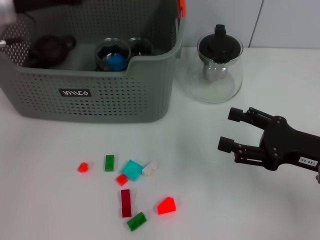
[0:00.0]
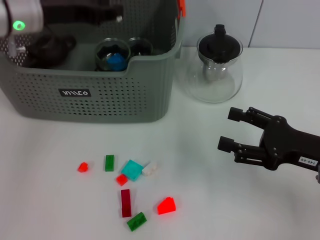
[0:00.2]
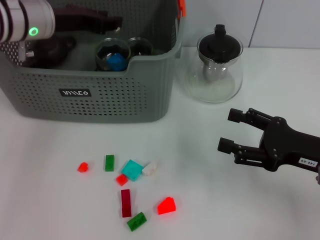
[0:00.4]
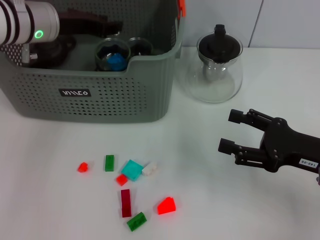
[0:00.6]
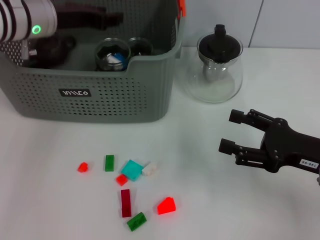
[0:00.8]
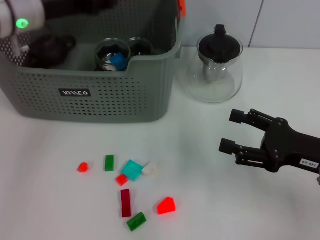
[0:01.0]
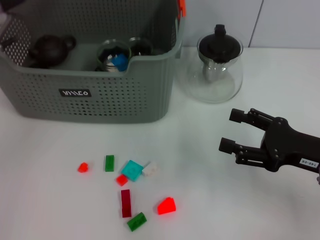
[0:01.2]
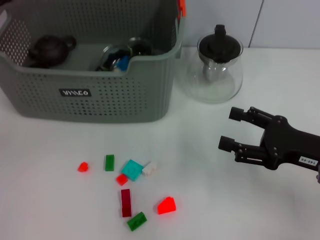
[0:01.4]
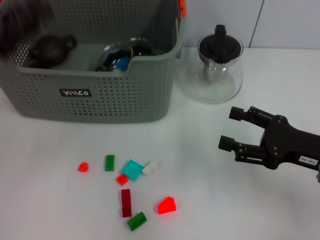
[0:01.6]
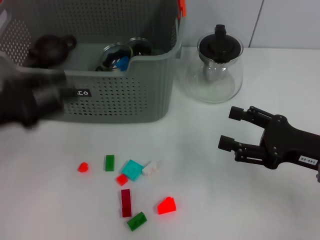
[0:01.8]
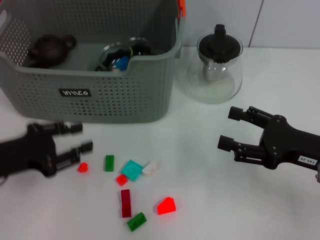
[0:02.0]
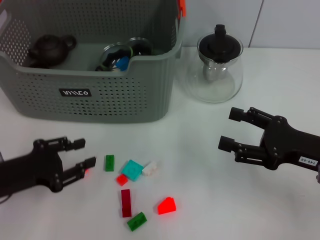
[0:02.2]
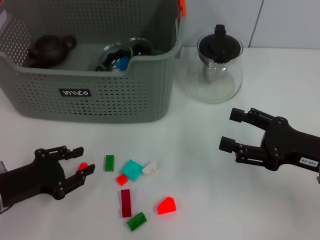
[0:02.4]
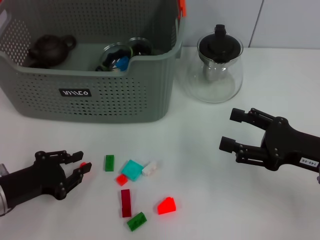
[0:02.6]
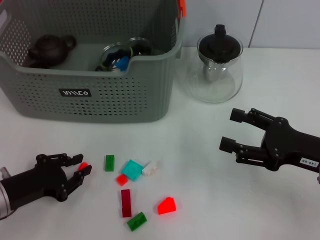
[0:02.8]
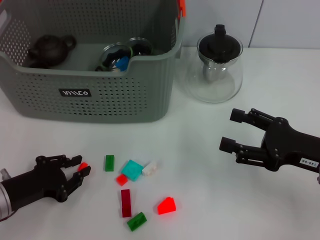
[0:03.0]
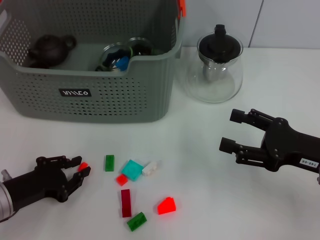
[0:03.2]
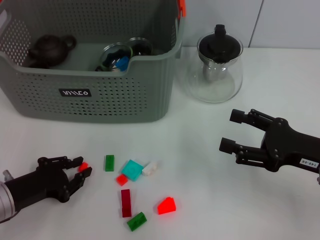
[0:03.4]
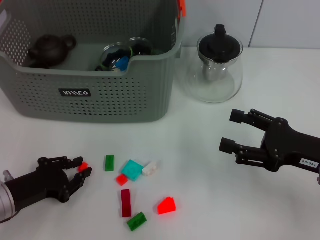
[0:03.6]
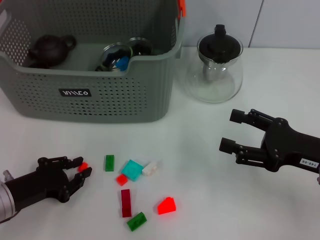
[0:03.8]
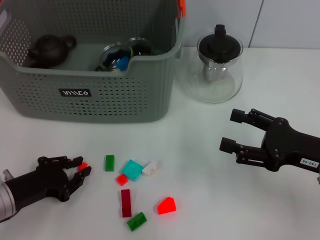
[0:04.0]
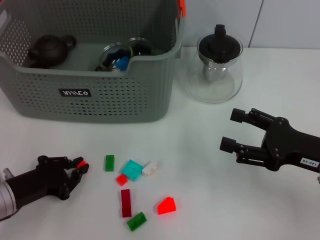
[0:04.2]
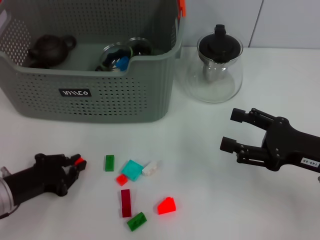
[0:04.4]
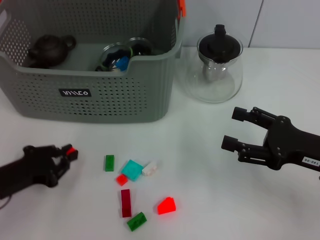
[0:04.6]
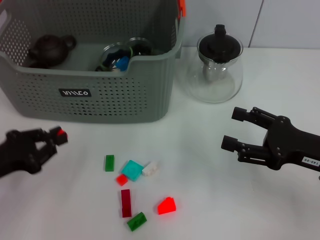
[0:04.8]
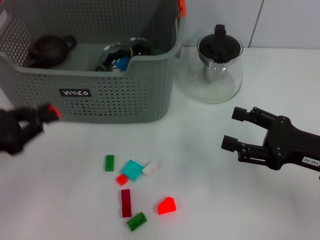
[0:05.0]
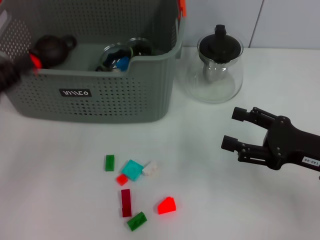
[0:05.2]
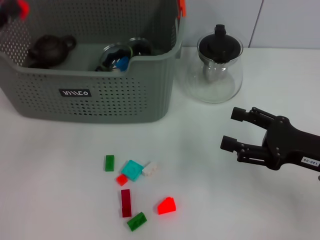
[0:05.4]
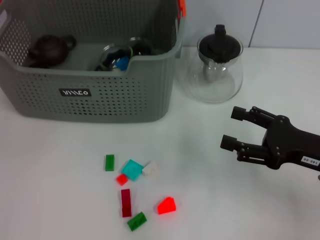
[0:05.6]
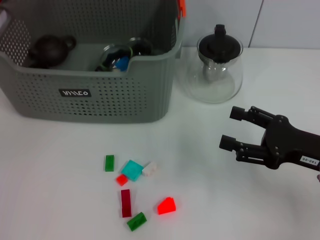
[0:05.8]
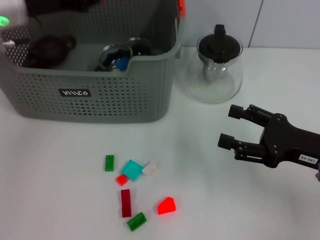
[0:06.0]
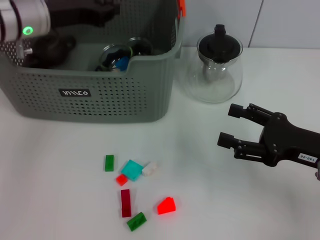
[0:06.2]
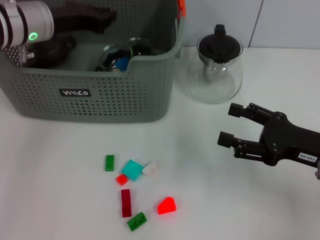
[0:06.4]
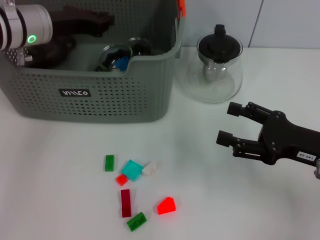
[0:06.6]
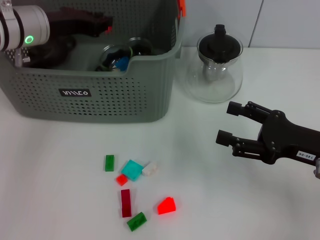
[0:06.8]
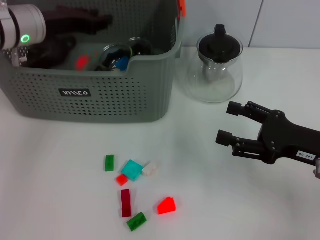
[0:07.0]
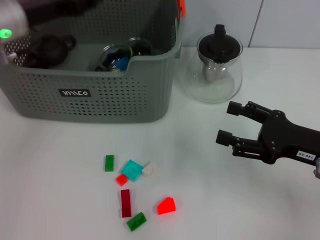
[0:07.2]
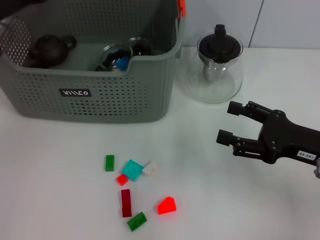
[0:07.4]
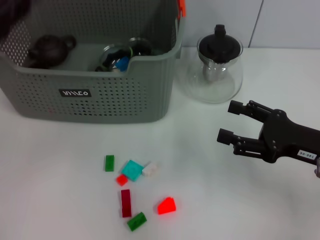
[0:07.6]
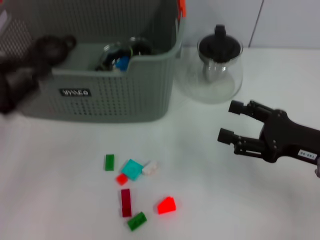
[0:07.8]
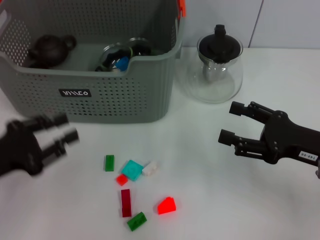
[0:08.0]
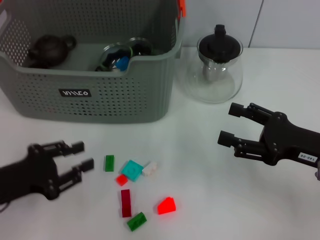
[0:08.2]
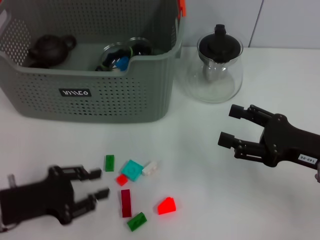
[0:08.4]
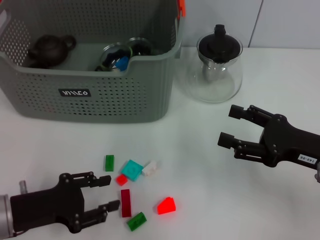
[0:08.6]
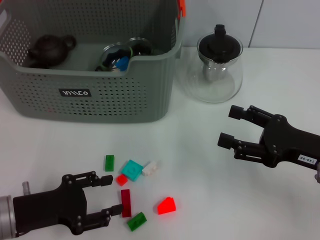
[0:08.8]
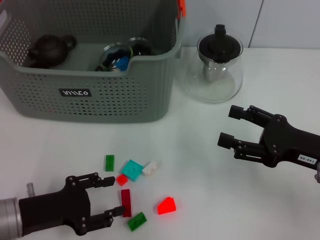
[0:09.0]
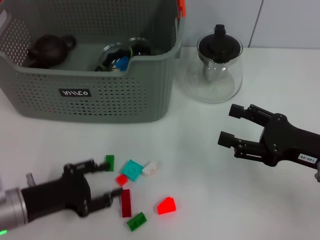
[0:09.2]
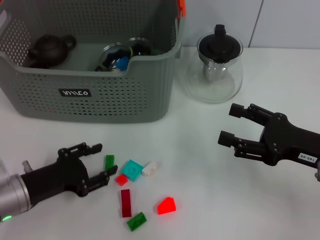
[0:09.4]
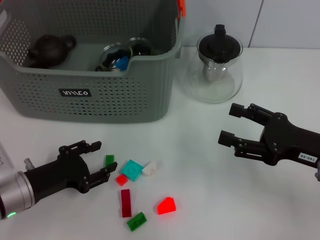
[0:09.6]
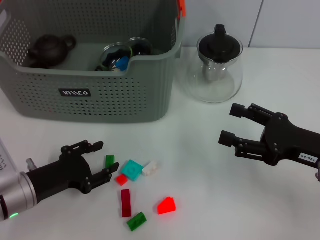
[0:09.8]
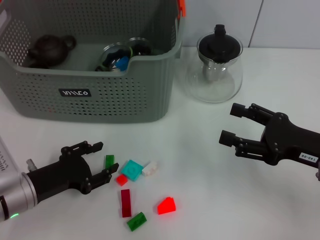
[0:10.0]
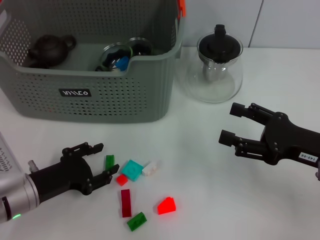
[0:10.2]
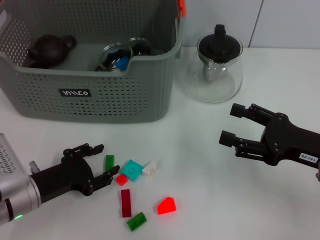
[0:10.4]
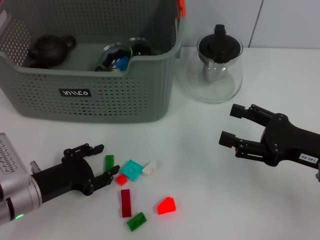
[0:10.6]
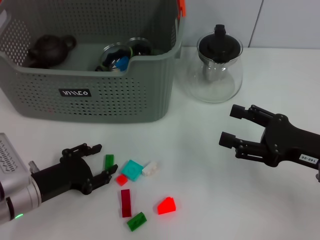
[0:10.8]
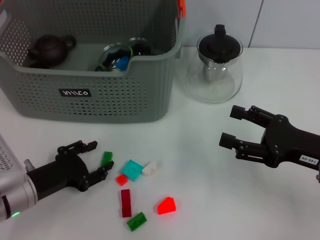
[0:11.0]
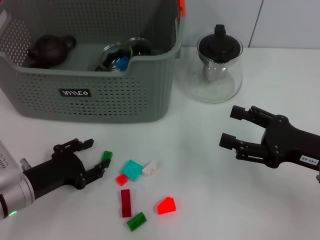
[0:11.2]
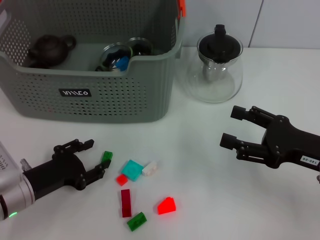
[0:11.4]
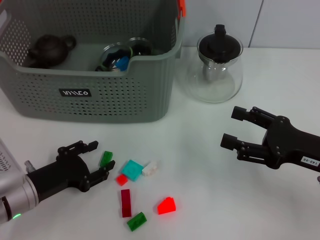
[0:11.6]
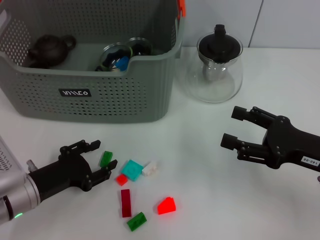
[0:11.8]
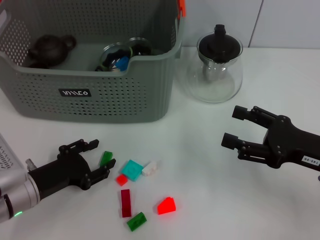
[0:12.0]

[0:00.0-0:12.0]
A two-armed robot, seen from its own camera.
Task of the whole recording: pick up the teacup on the table and place it into the storage bin, pick up the block on the table and place it into the storage bin.
Step, 0:01.2 to 0:04.4: Grasp the orange block with left gripper.
Step, 0:04.6 to 0:07.2: Place the orange block in the storage box with left gripper.
0:00.0 to 0:01.6: The left gripper is displaced backward and to the left by roughly 15 cm.
0:01.6 to 0:03.0: The left gripper is displaced downward and backward by some 15 cm.
0:03.0 to 0:04.4: The two grippers keep their place.
0:04.4 to 0:06.0: The left gripper is displaced forward and upward by some 25 cm.
0:06.0 to 0:07.6: The left gripper moves backward and to the left, roughly 15 cm.
0:07.6 to 0:09.0: The left gripper heads downward, backward and to the right, covering about 20 cm.
0:09.0 to 0:10.4: The grippers make only small movements.
0:10.4 to 0:12.0: Both grippers stay about where they are.

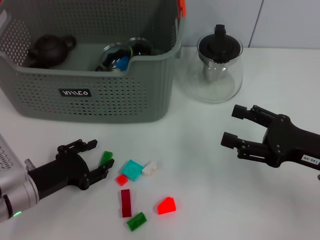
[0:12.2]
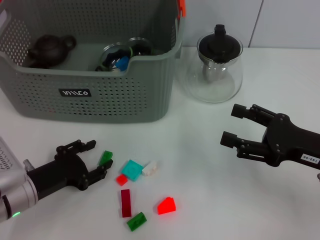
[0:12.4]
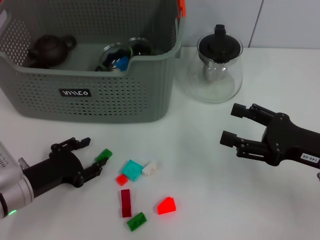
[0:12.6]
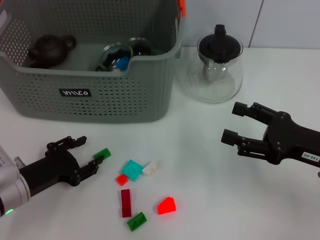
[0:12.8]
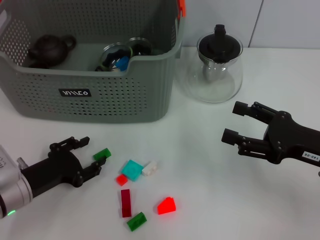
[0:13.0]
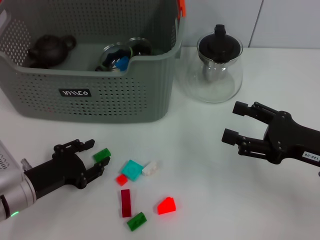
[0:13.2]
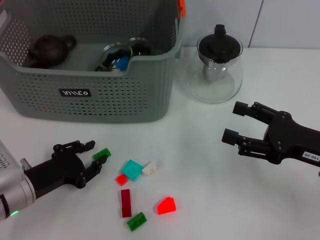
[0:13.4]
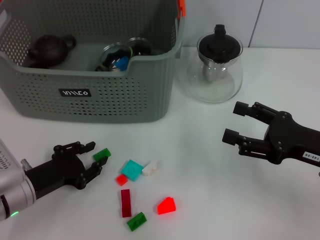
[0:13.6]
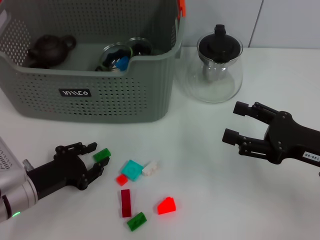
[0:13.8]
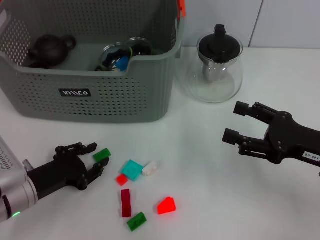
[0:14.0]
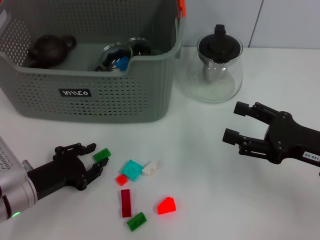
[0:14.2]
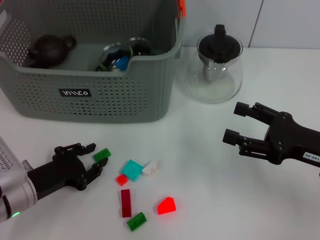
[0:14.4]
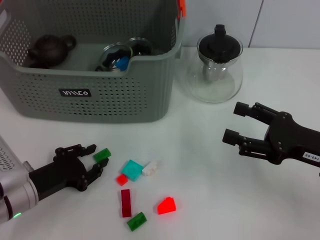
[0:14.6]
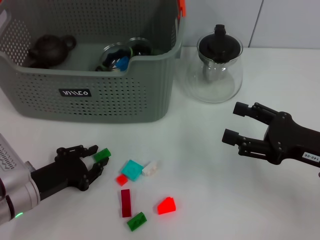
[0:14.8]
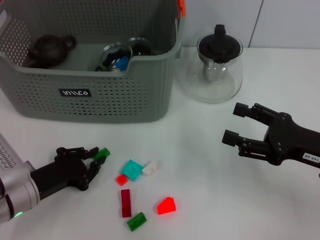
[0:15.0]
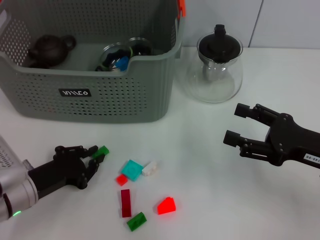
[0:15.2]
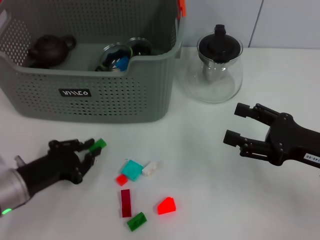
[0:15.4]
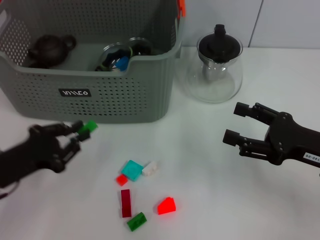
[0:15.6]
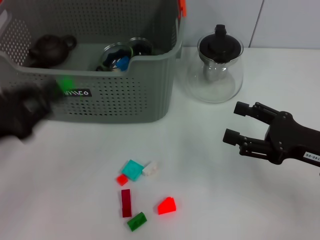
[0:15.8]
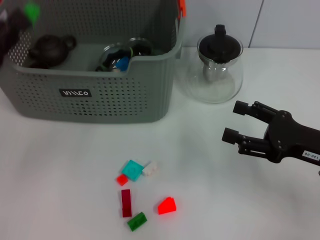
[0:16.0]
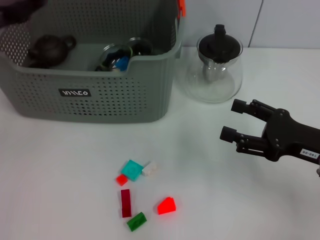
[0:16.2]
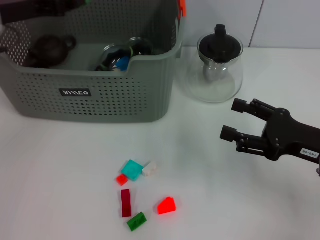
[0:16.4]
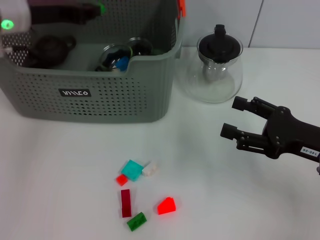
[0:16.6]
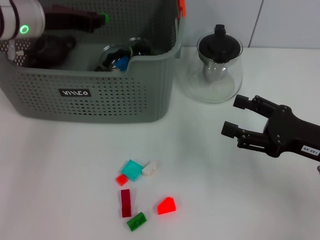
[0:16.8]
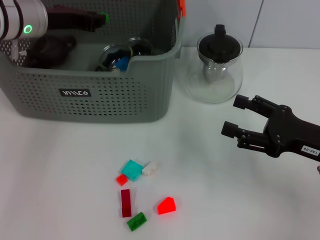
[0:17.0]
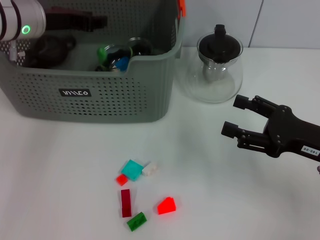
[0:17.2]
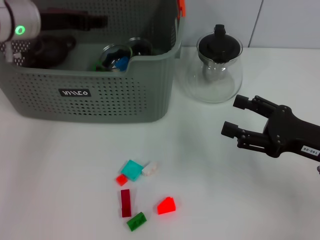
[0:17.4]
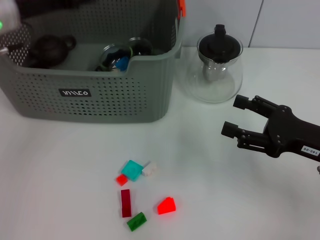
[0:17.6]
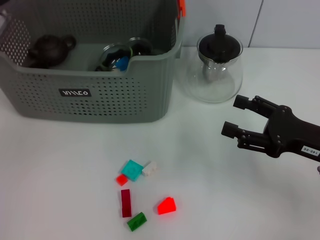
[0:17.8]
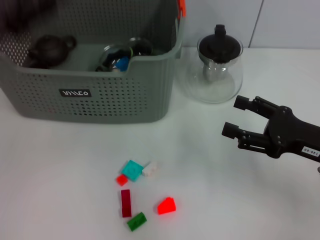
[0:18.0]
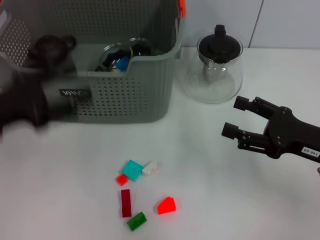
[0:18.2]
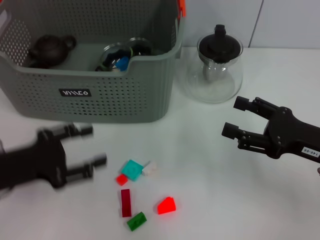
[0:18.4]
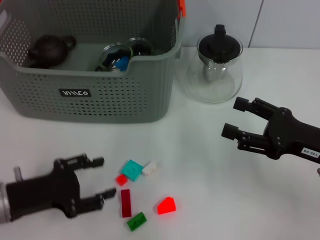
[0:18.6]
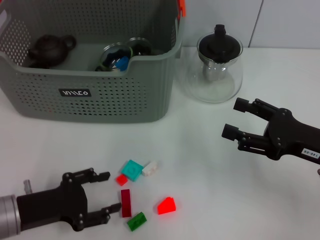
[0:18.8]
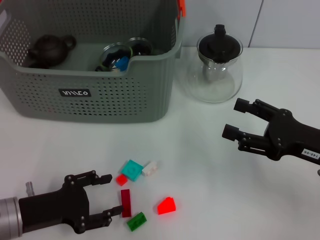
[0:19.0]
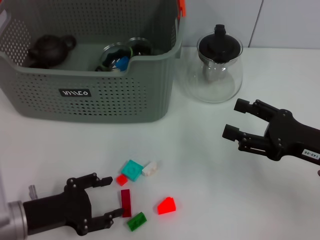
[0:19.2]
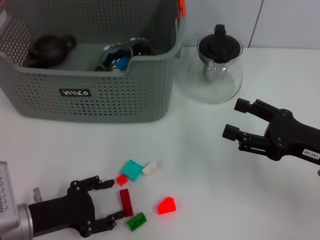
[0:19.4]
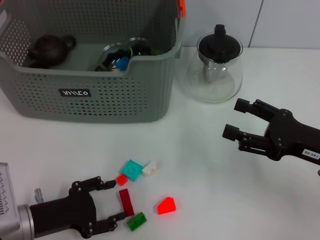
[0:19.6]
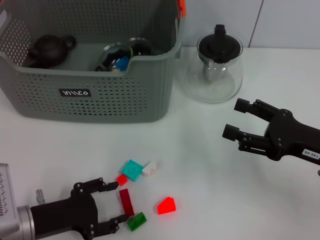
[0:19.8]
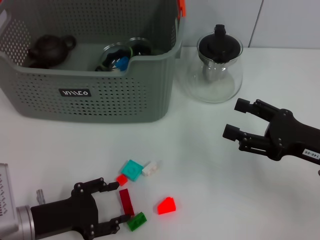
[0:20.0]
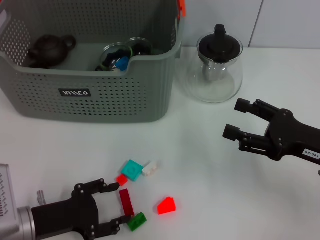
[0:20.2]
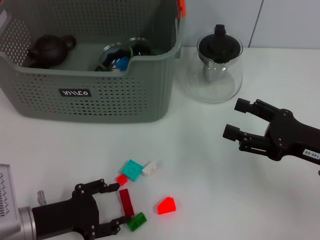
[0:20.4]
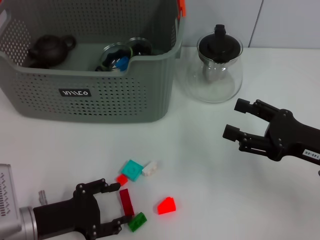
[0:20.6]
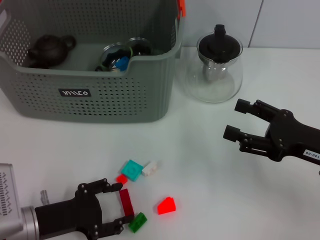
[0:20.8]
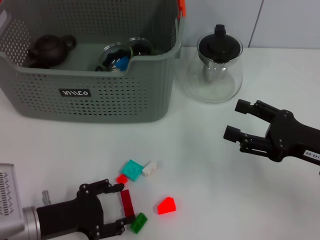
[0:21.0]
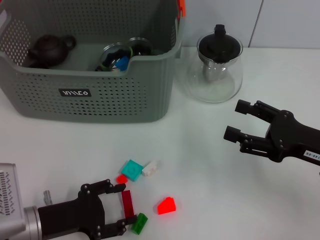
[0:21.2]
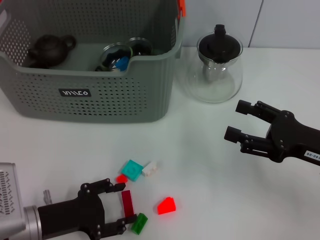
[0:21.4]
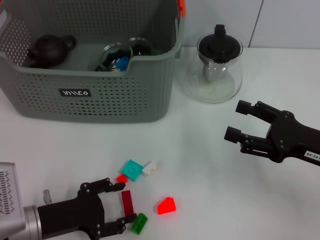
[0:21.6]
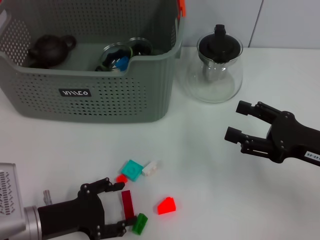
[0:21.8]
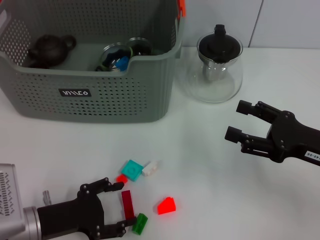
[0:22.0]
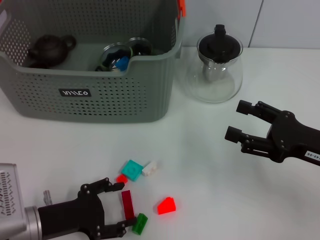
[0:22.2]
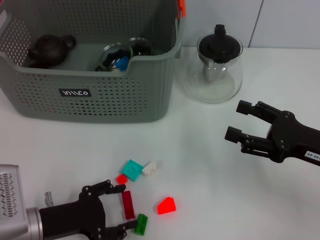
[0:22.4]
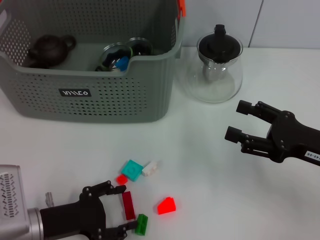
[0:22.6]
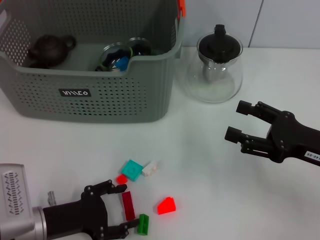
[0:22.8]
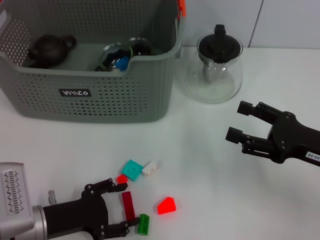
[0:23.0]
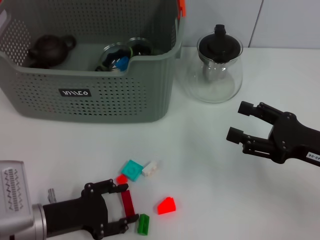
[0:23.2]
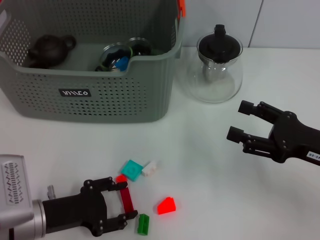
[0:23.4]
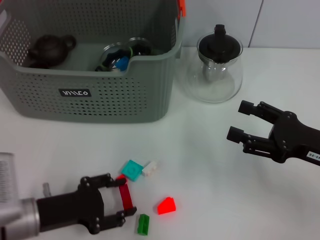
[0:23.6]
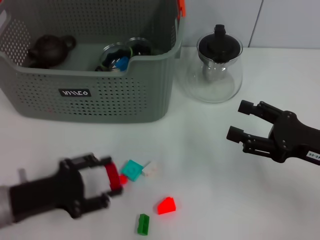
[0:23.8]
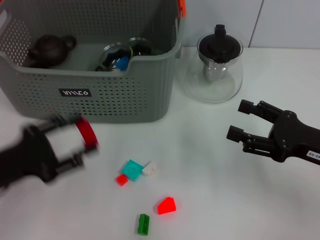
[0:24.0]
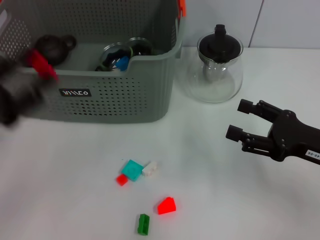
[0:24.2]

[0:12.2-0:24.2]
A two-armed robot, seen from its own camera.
Task of the whole recording: pick up the teacup on the table and place it into the storage bin, pick up the block on the table and place it into the storage bin.
Step, 0:12.2 to 0:15.0: Grasp the green block with left gripper.
Step, 0:15.2 to 0:17.8: Place the green block in the storage box with left gripper.
Step, 0:18.0 to 0:23.6: Grasp the red block with left gripper.
0:12.2 to 0:15.2: Both grippers stay about where they are.
0:15.2 to 0:16.6: The left gripper heads upward and forward, covering some 25 cm.
0:16.6 to 0:18.2: The left gripper moves backward, approximately 15 cm, and opens its fingers.
0:18.2 to 0:19.8: The left gripper is displaced downward and backward by approximately 15 cm.
0:19.8 to 0:22.6: Both grippers stay about where they are.
0:22.6 to 0:24.2: The left gripper heads upward and to the left, covering approximately 15 cm.
